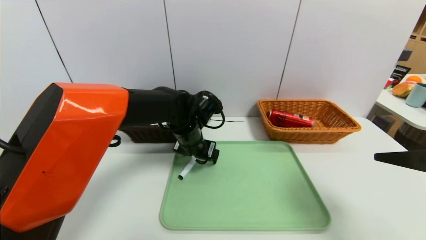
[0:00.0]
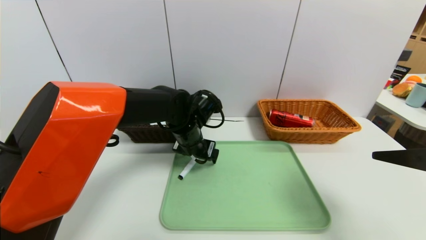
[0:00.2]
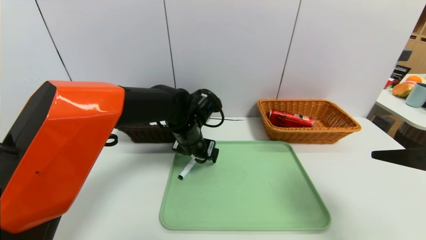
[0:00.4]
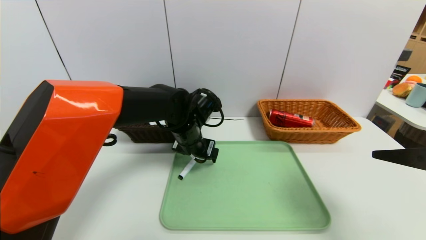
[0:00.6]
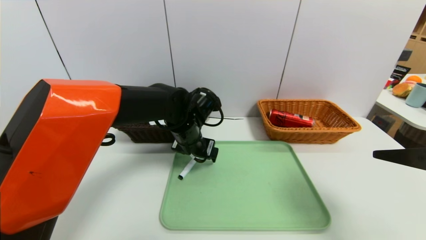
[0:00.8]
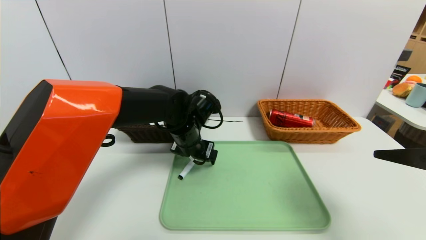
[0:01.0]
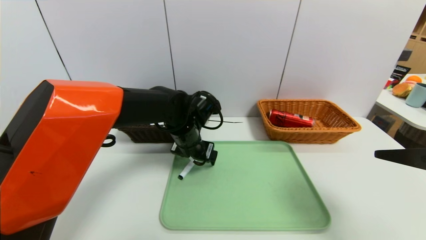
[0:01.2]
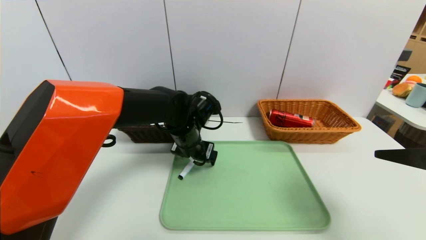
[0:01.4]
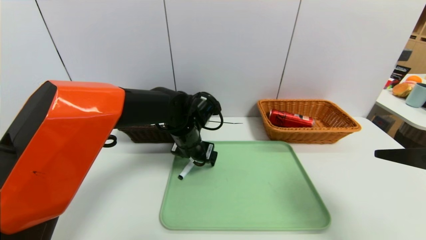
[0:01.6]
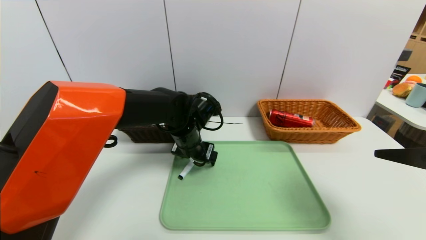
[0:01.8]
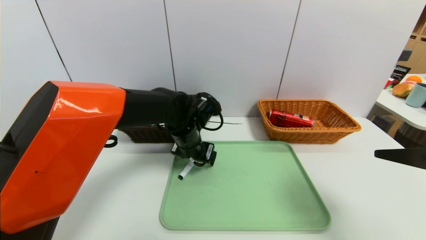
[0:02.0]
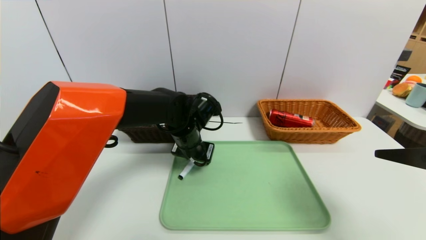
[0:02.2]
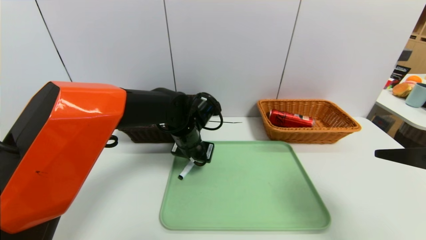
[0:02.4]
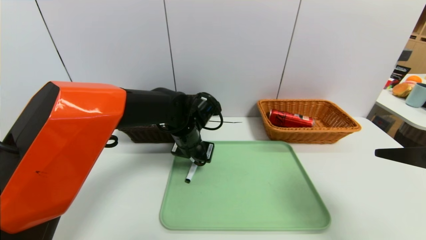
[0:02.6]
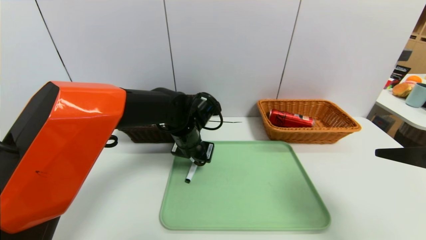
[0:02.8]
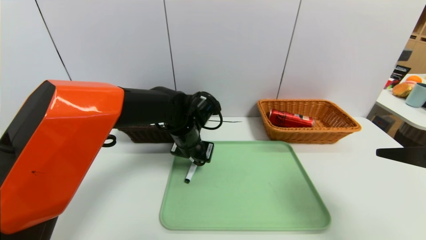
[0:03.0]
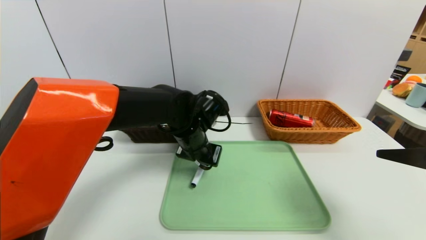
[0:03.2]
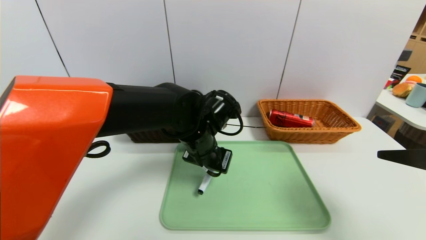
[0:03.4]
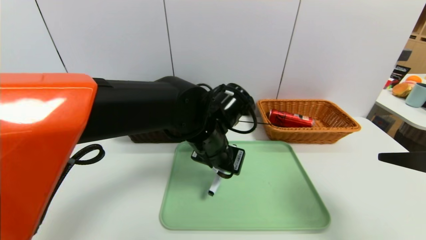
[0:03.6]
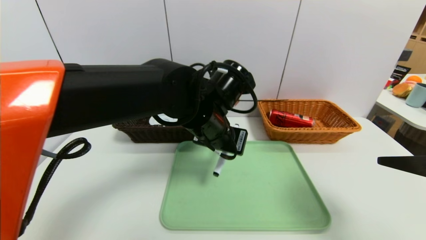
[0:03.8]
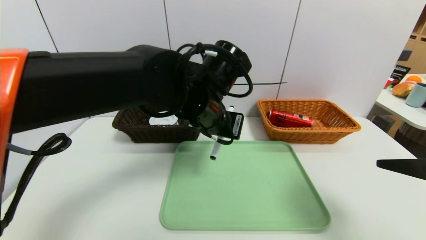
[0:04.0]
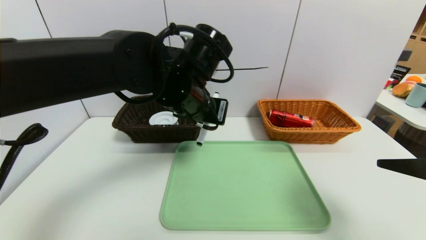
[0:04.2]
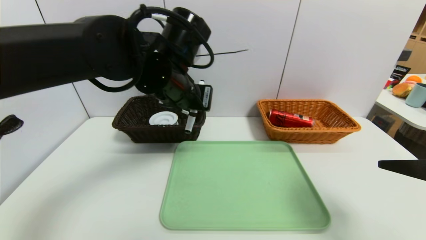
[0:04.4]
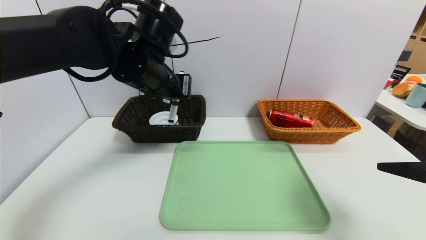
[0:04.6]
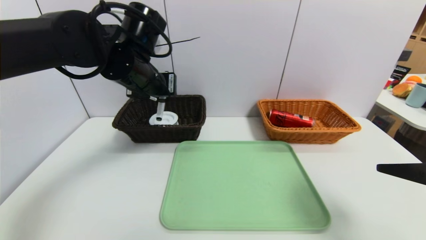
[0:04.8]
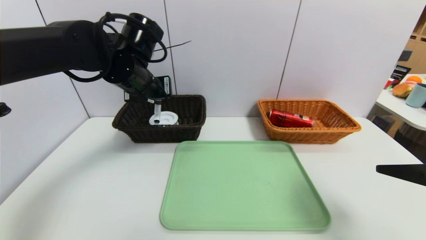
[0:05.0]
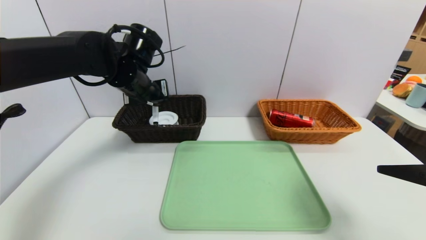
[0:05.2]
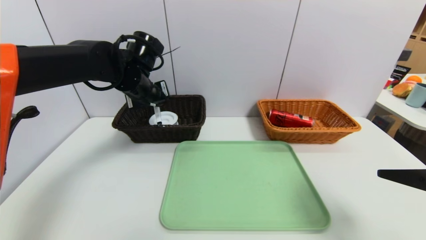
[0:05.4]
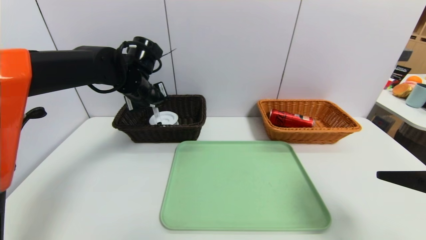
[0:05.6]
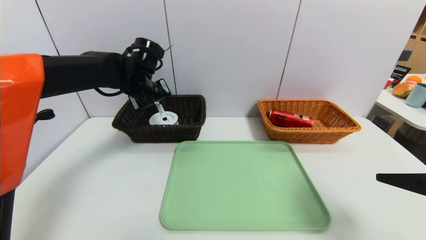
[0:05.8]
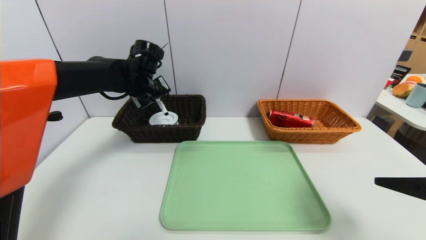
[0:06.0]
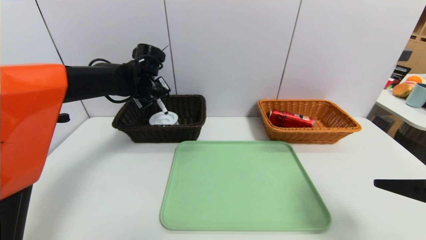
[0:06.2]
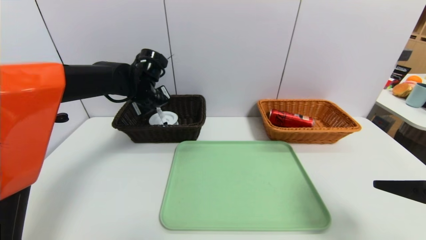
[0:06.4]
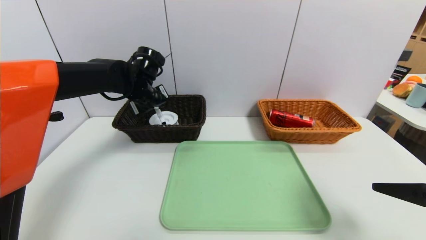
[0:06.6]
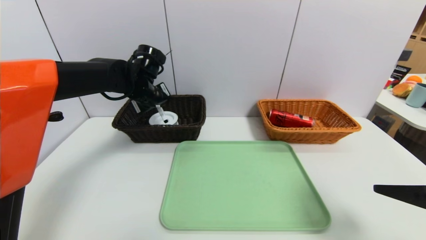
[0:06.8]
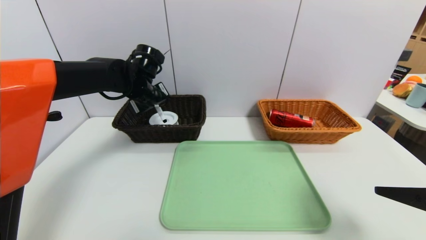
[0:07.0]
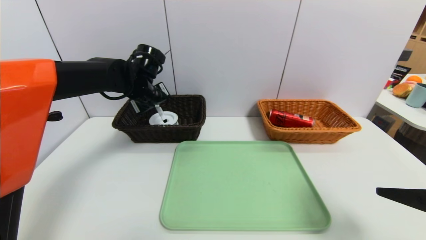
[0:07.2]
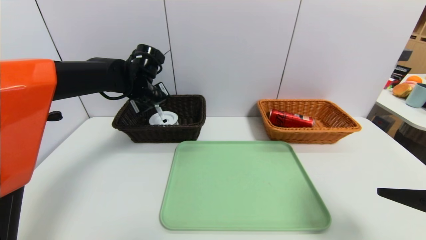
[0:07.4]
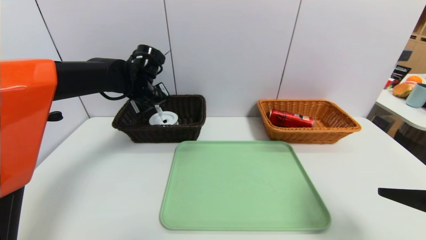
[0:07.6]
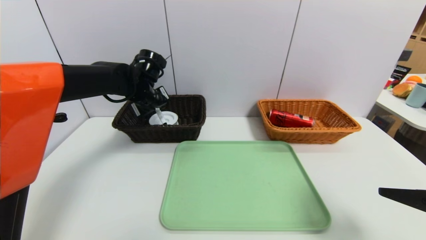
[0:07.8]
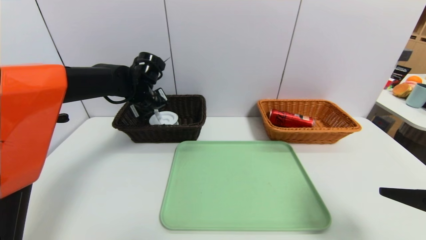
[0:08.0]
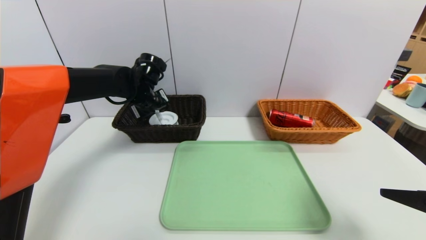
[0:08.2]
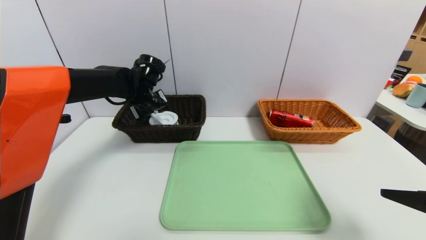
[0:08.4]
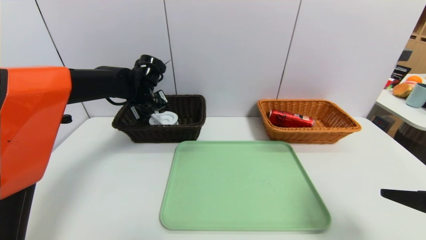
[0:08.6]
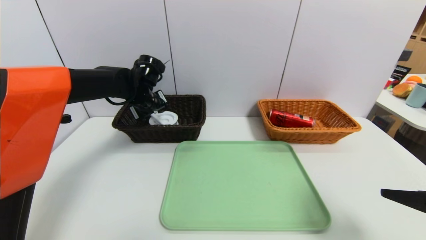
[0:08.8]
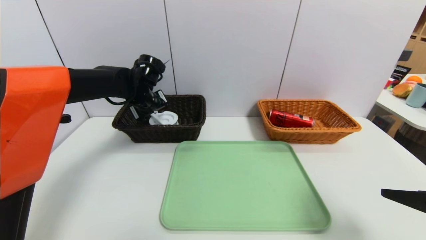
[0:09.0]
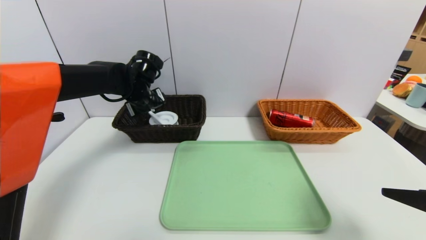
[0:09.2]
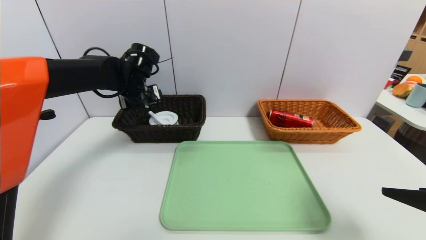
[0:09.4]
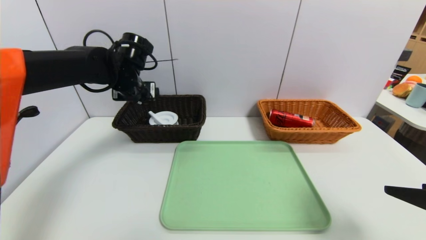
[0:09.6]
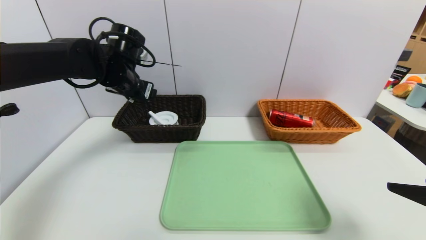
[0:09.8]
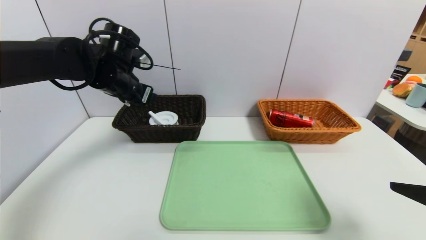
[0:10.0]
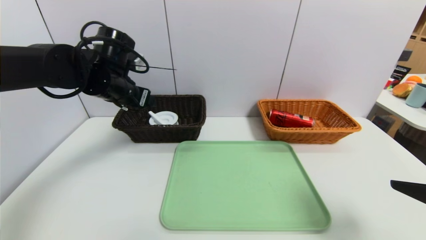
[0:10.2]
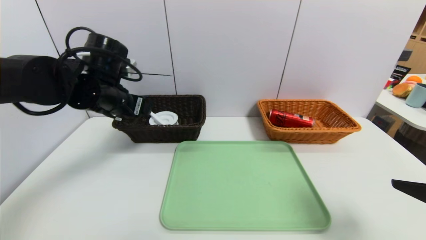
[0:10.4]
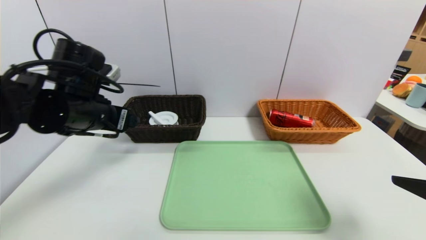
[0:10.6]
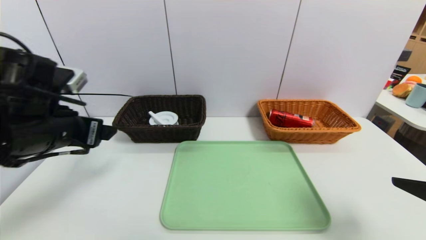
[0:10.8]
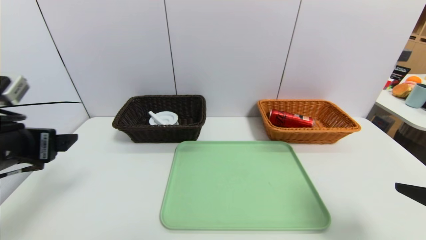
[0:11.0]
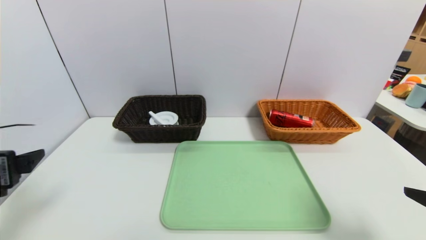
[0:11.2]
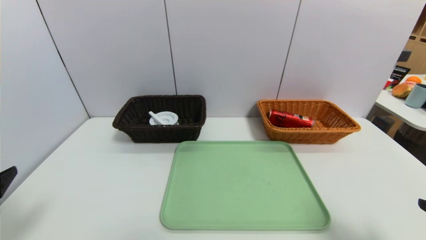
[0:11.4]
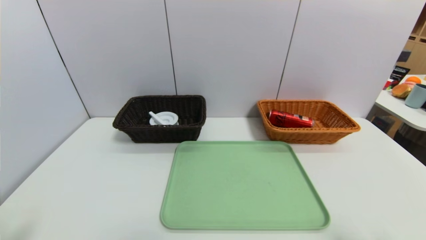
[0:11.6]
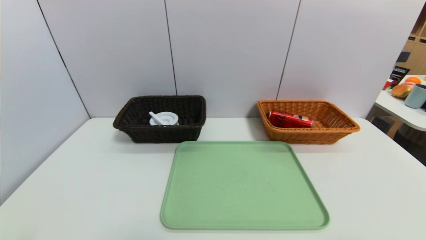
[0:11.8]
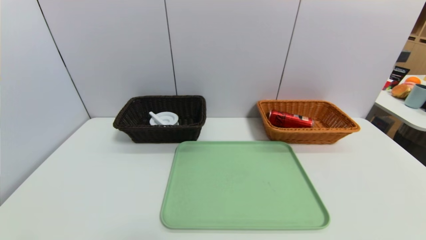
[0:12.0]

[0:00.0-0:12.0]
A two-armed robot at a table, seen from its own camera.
Task of the whole recording: place the food in the right basket with the right gripper, and place the non food items in the left basket with the left gripper.
Step, 0:00.0 to 0:09.0: Grasp the pen container and put it in the left basket.
0:00.0 to 0:01.6: Both grippers stay about where they are.
0:01.6 to 0:03.0: The left gripper closes up.
0:03.0 to 0:04.4: The left gripper shifts roughly 15 cm upward.
0:04.4 to 0:06.0: The left gripper goes some 15 cm forward, to the left and downward.
0:06.0 to 0:07.6: There are only small adjustments of the grippers.
0:07.6 to 0:09.0: The left gripper opens up.
0:09.0 to 0:10.4: The left gripper moves backward, about 10 cm.
0:10.4 to 0:12.0: The left gripper heads backward, covering approximately 35 cm. Meanwhile the right gripper travels backward and downward by approximately 15 cm.

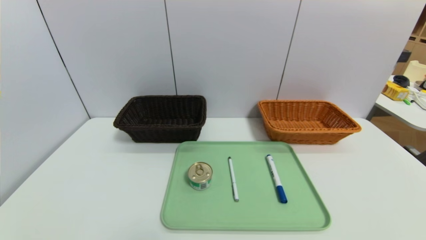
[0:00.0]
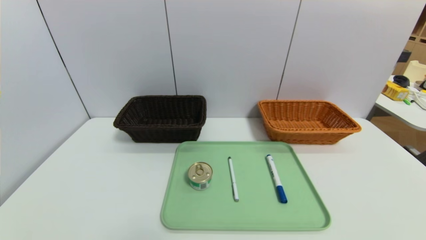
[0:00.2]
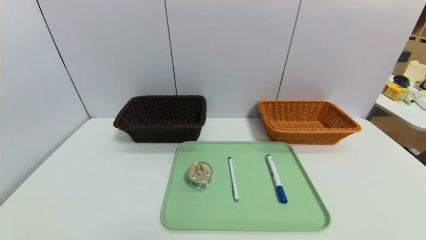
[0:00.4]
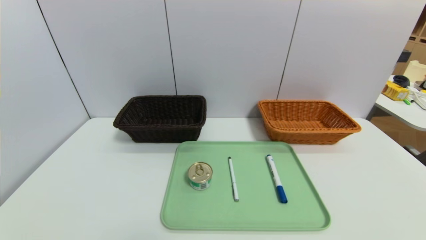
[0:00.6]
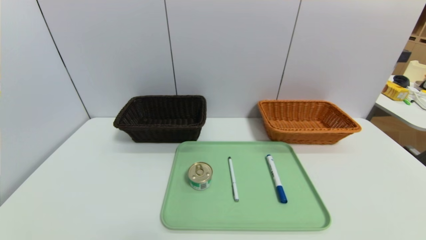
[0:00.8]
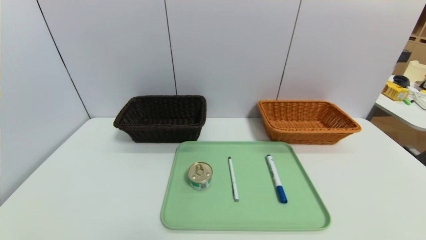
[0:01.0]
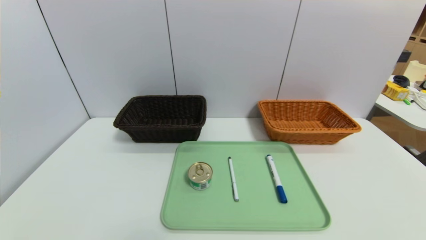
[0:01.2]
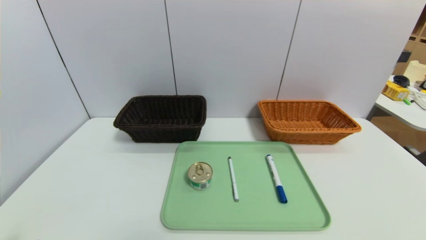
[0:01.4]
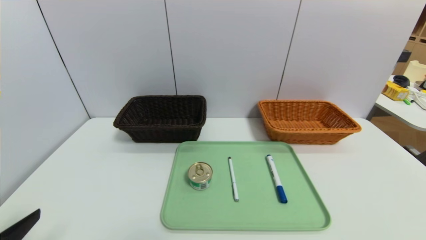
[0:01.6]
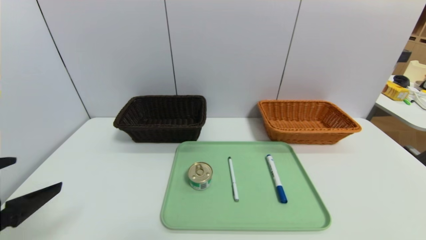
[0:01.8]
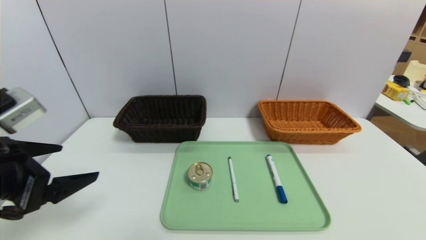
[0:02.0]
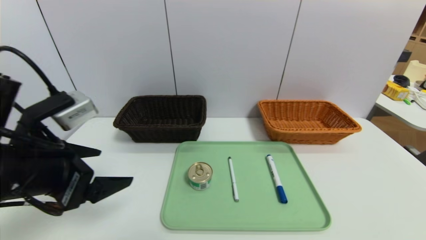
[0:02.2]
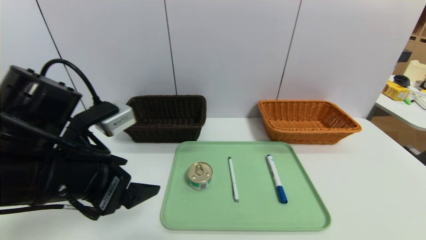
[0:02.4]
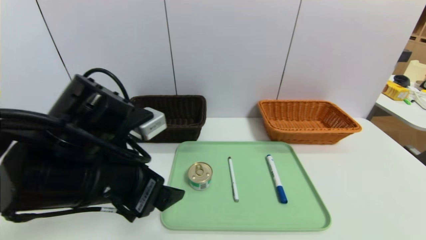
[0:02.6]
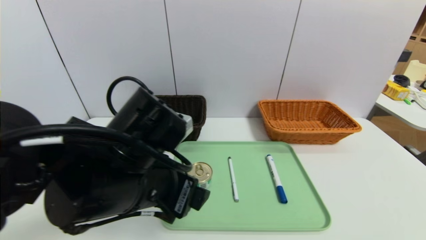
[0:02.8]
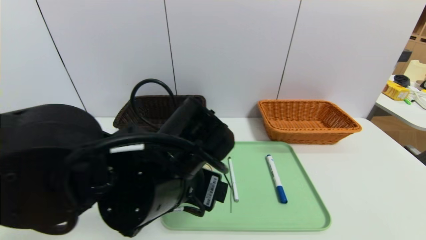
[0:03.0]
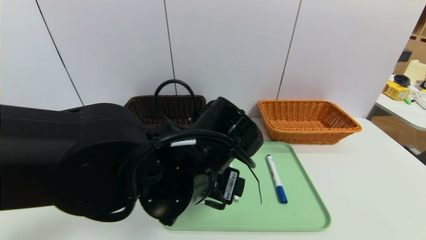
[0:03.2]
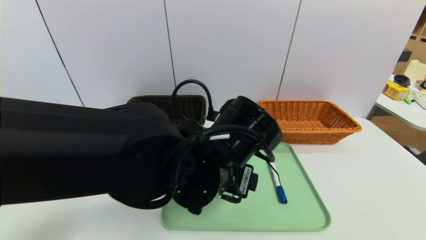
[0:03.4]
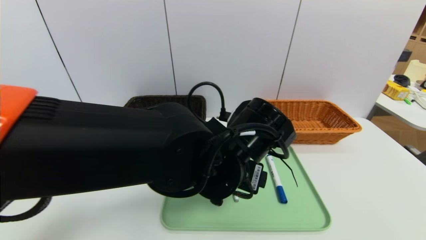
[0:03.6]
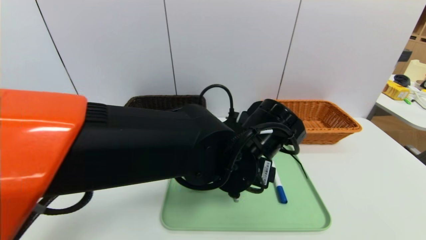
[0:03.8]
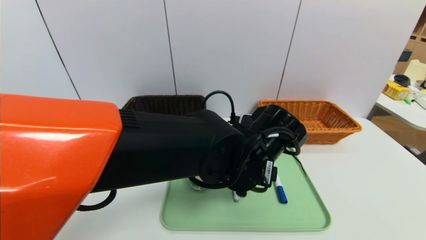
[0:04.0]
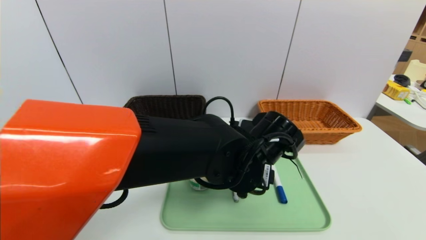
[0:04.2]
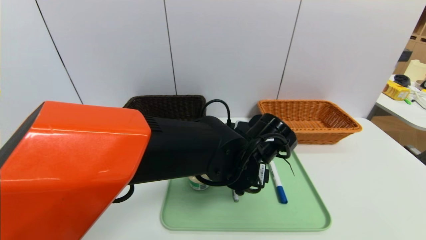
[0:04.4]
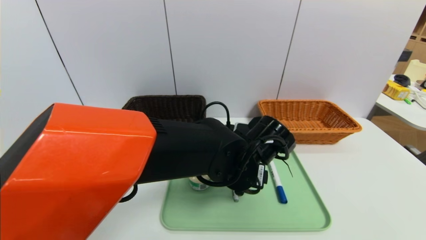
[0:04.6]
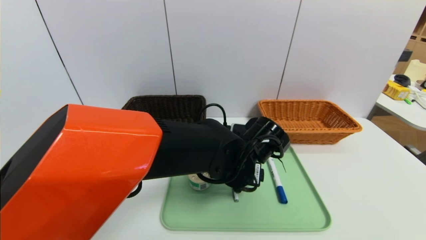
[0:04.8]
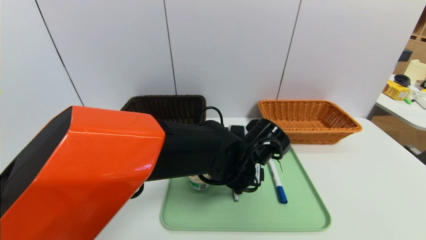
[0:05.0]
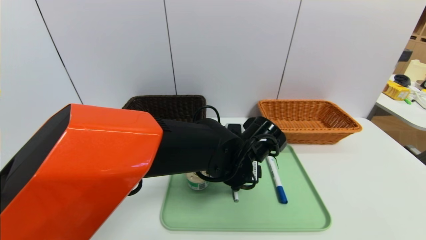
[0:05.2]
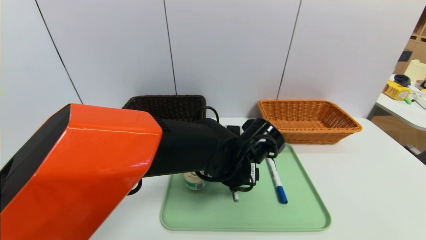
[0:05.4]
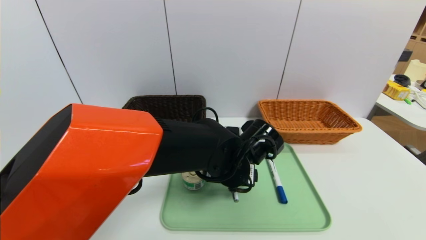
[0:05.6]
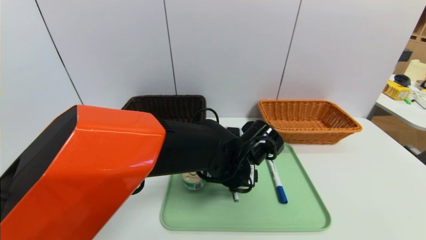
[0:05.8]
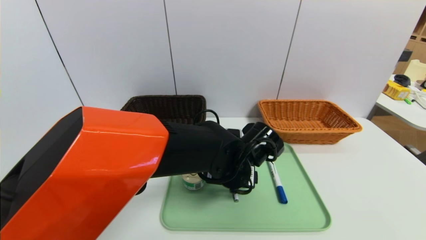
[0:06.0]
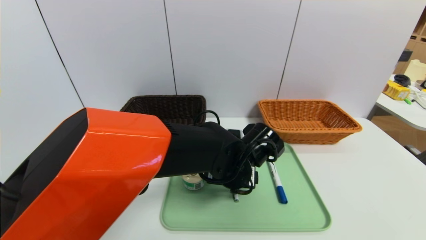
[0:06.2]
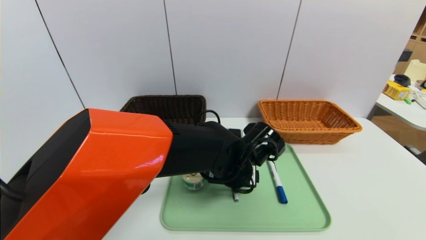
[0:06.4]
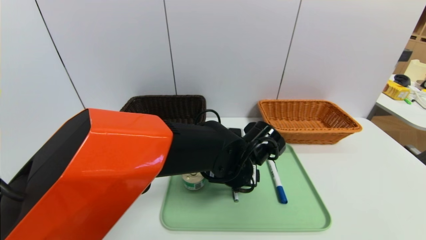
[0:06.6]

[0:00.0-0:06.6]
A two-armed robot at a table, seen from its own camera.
Task of the whole recording: place the food in the right basket with the right gripper, and place the non food items in the left basket with the left gripper.
0:00.0 to 0:01.6: The left gripper moves upward and forward, approximately 15 cm.
0:01.6 to 0:03.2: The left gripper goes approximately 30 cm to the right and forward.
0:03.2 to 0:05.0: The left gripper travels forward, to the right and downward by approximately 10 cm.
0:05.0 to 0:06.6: Neither gripper changes place.
